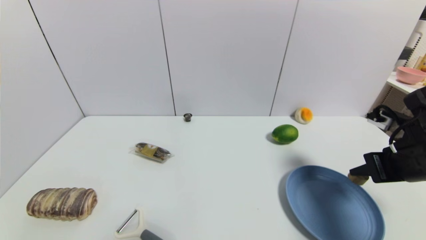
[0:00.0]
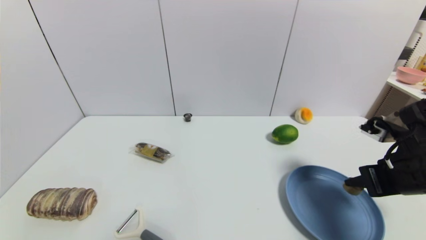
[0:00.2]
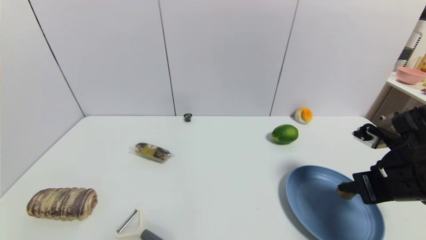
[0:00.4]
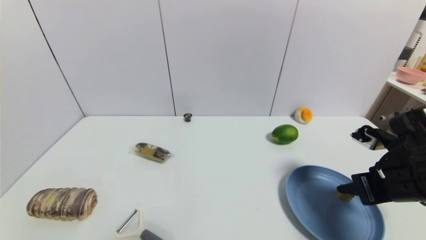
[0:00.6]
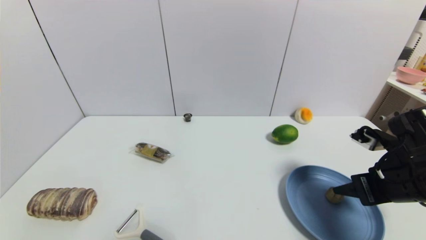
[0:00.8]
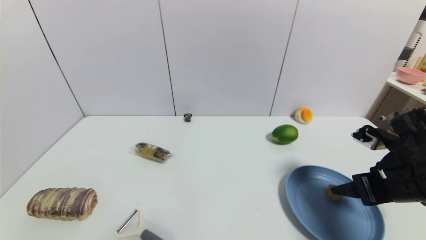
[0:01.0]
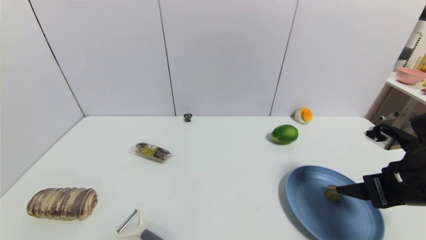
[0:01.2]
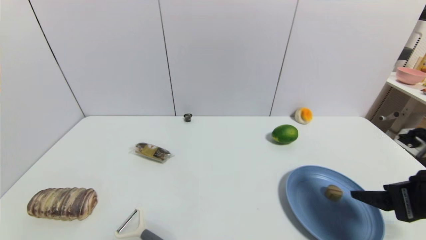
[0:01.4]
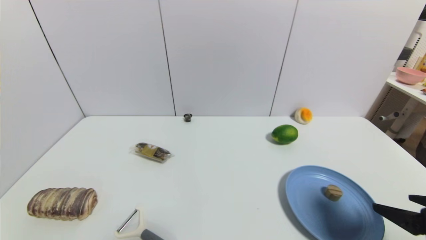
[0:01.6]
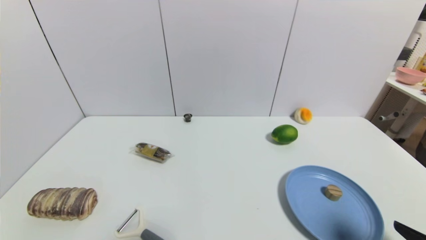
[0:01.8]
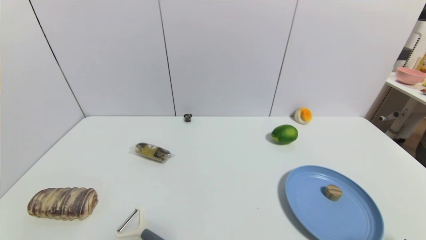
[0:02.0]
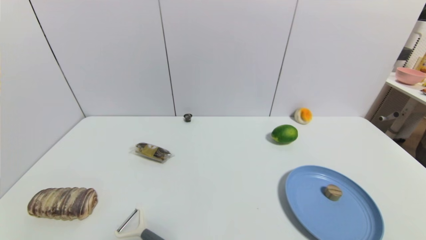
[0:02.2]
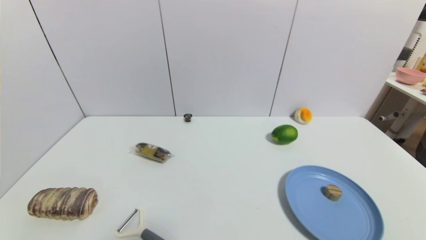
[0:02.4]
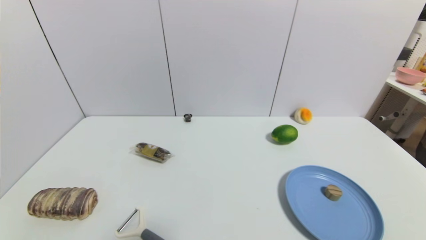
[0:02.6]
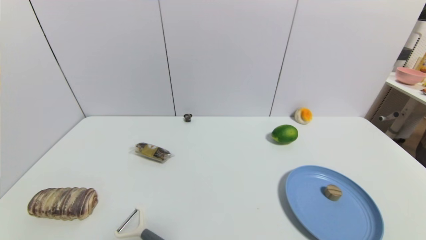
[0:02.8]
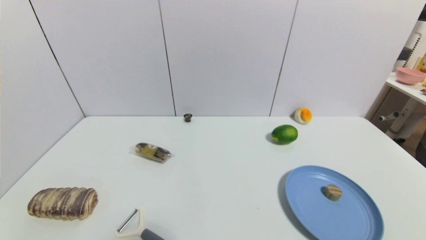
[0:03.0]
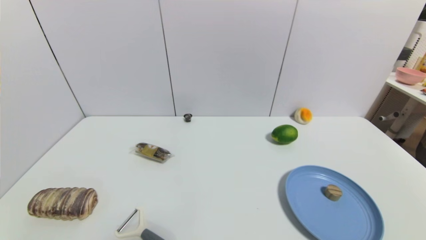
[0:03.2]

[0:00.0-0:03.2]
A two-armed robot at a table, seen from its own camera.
Task of the whole recording: use a gripper to pick the target object and place on the blue plate.
0:00.0 to 0:01.6: The right gripper heads backward, covering some 10 cm, and opens.
0:01.6 to 0:03.2: The right gripper goes some 15 cm downward and backward.
